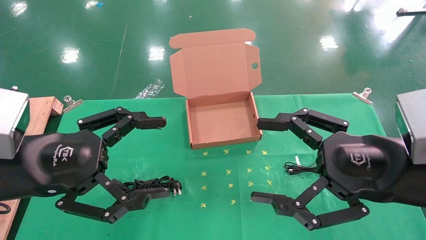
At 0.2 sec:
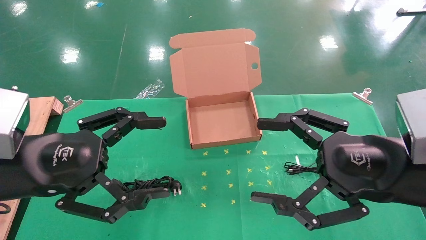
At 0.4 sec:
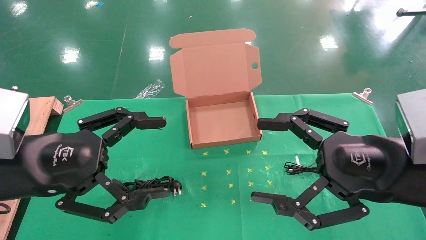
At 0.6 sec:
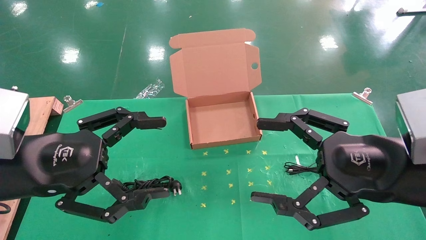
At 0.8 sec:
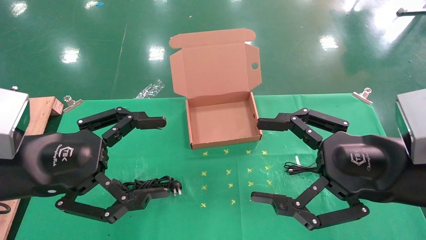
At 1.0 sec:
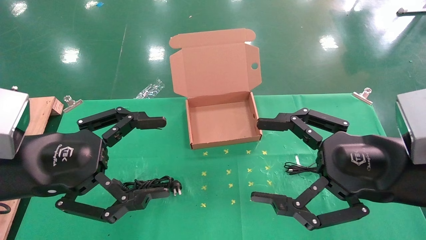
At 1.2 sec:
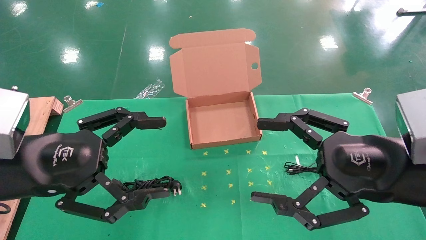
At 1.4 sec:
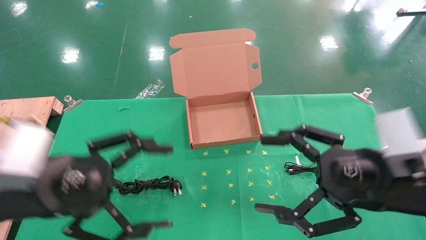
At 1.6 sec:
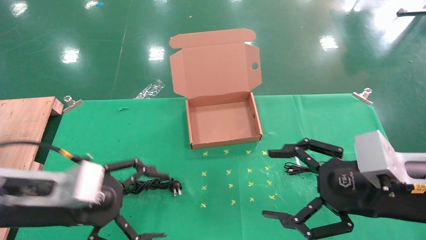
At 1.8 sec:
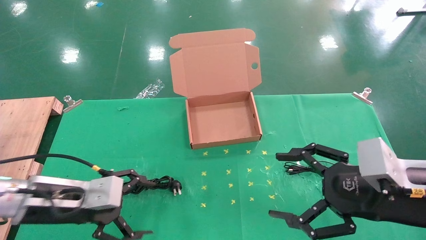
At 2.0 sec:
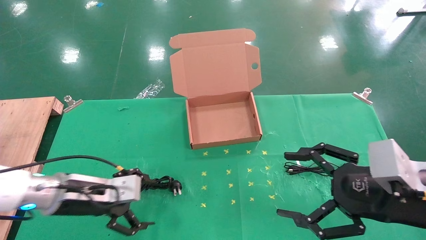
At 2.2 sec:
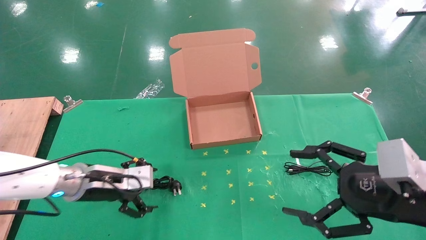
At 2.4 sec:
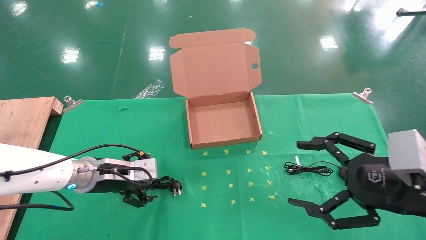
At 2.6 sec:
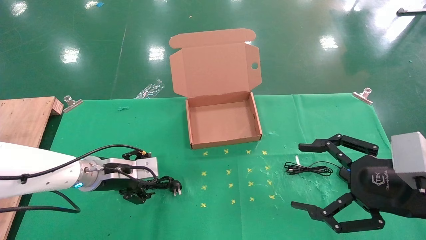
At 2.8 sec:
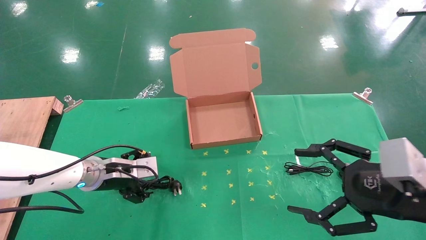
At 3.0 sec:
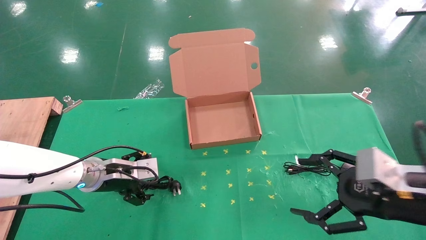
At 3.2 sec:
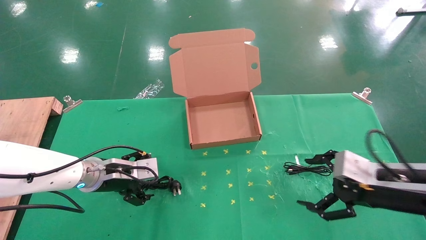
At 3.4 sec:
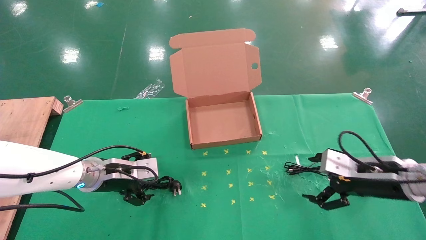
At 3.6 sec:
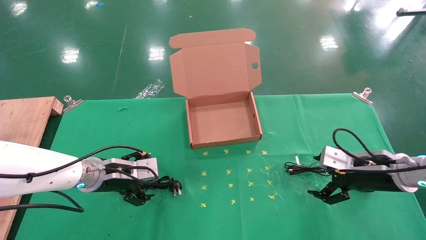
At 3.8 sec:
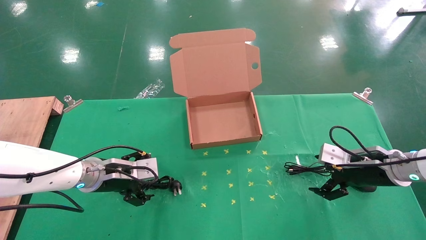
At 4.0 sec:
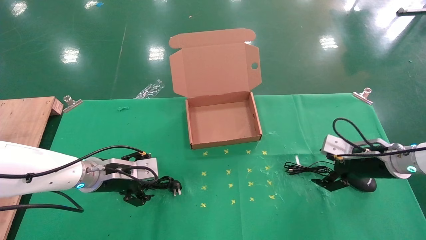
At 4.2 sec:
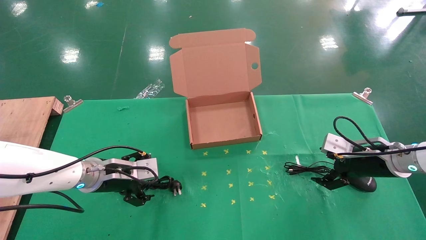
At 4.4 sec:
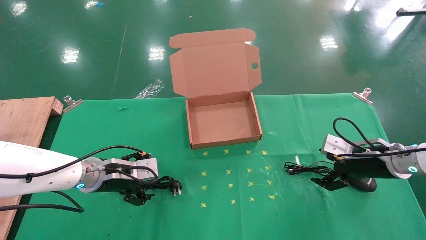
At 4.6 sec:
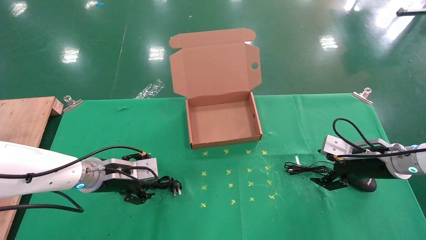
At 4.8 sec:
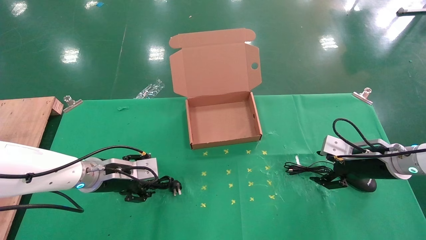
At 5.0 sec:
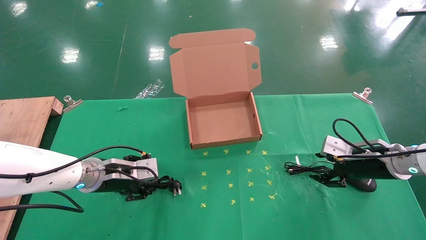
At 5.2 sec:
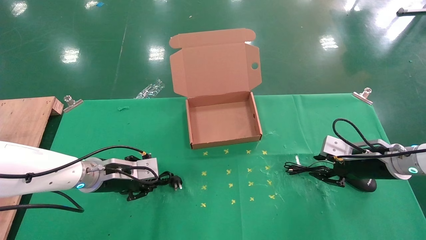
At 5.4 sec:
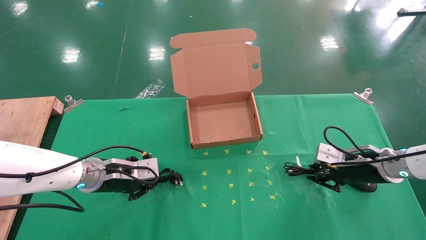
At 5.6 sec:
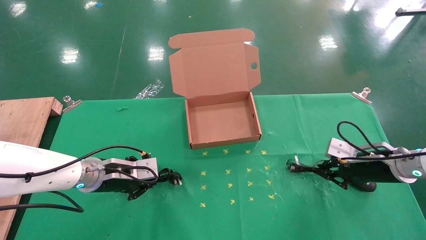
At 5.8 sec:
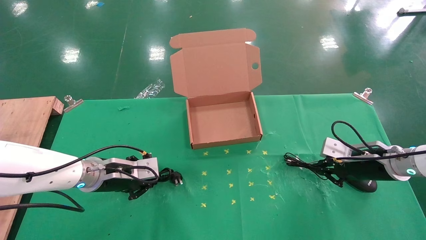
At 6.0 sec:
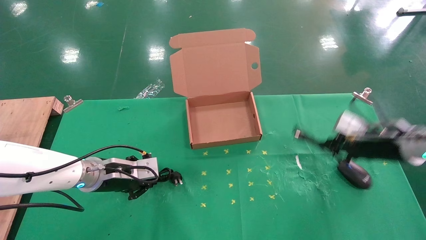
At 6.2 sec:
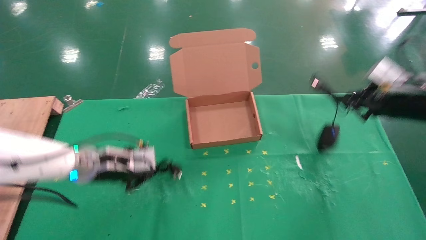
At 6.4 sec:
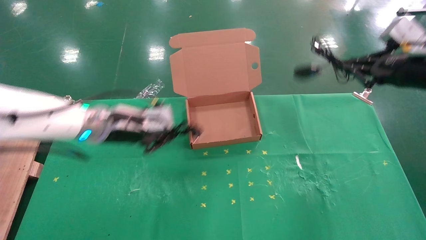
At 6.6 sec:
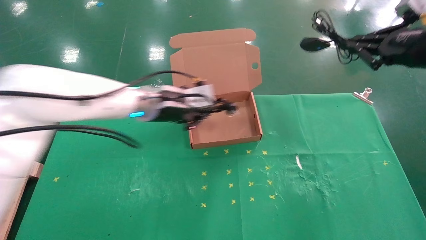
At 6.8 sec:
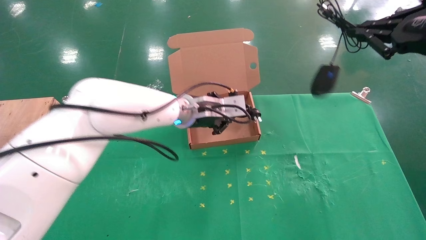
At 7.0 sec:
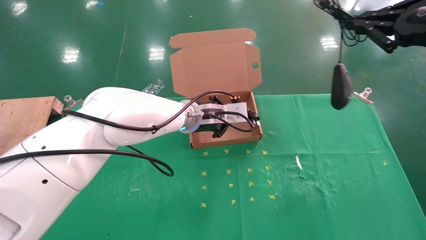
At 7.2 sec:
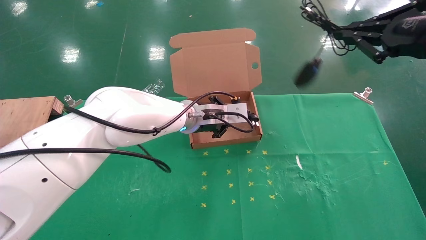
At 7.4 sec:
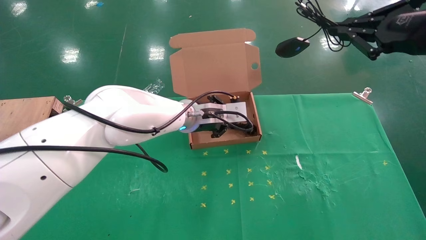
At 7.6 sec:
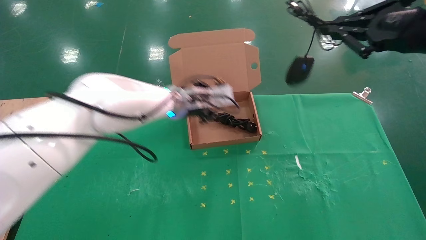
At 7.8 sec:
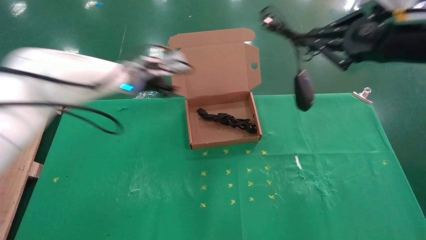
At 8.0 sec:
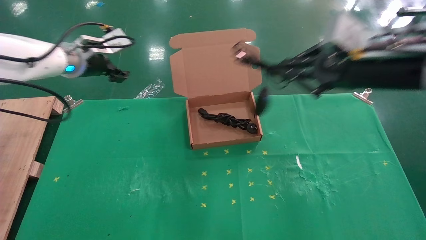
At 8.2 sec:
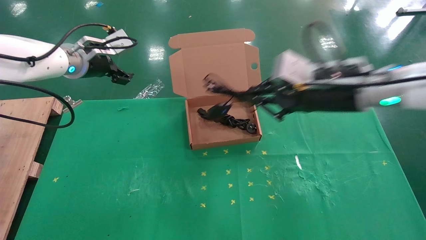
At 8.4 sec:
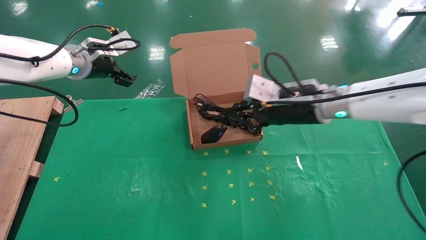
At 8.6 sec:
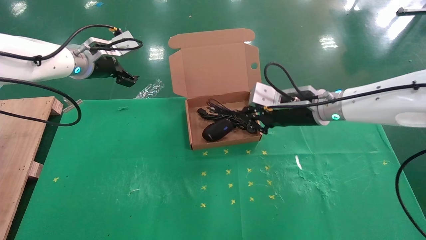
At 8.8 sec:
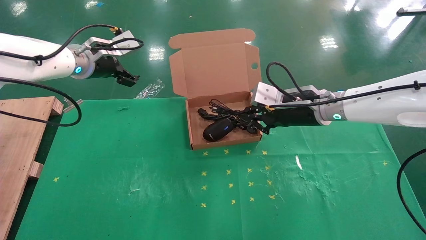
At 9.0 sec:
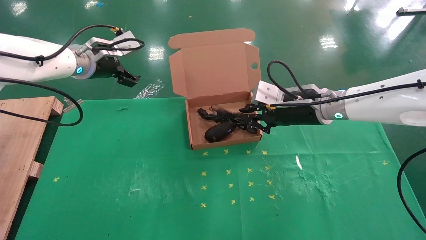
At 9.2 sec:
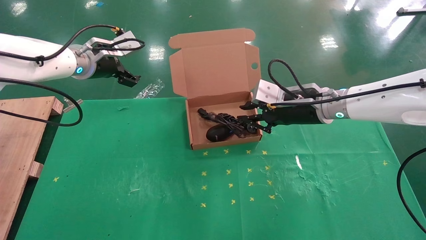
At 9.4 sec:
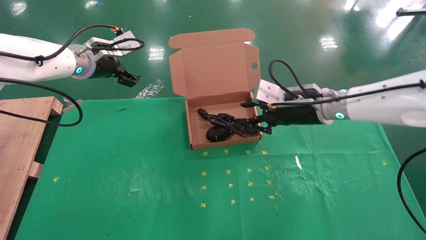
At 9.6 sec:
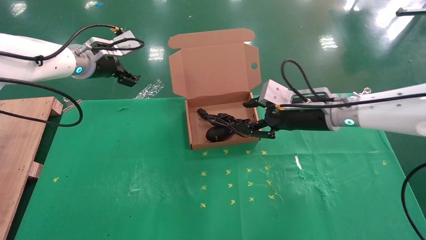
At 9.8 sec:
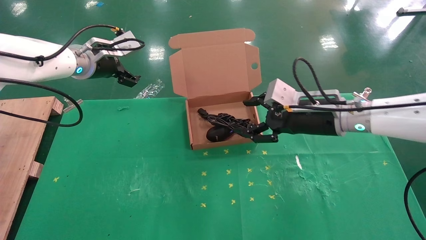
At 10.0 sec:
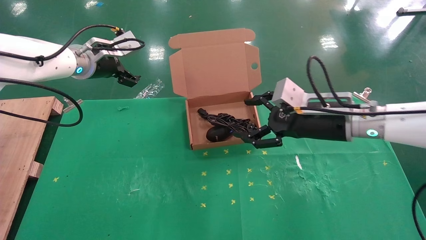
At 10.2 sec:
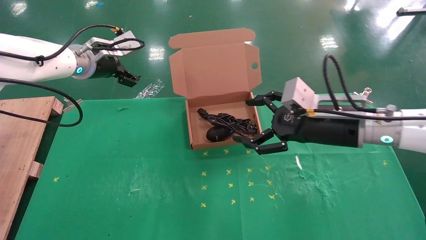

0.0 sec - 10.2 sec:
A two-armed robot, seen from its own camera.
Task of the whole recording: grasp data cable left put into box grasp mouse right put into box.
Step, 1.4 sec - 5.6 sec: Simultaneously pick up the mouse and power cord from the accessory packaging area.
Step, 5.8 sec - 9.4 sec: Place the mouse and power cord into the box.
1.4 sec - 3.0 sec: The left gripper travels forward and downward by roughly 20 cm. Meanwhile the right gripper travels to the right and downward by some 5 cm.
3.0 sec - 4.4 sec: The right gripper shifts about 15 cm forward.
4.4 sec - 5.8 sec: The left gripper closes up; the right gripper closes its fingers.
5.8 sec - 7.2 sec: The right gripper is displaced upward and backward by approximately 25 cm, while the left gripper moves to the right and upward, roughly 25 cm.
7.2 sec - 8.8 sec: The left gripper moves to the left and upward, roughly 25 cm, and opens up, while the right gripper travels to the left, downward and forward by about 25 cm.
8.8 sec - 10.2 sec: The right gripper shifts approximately 10 cm backward, and opens up.

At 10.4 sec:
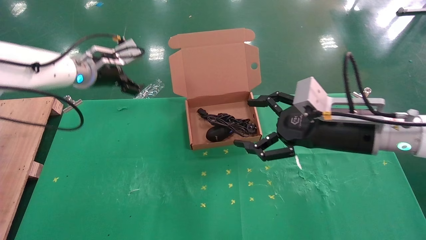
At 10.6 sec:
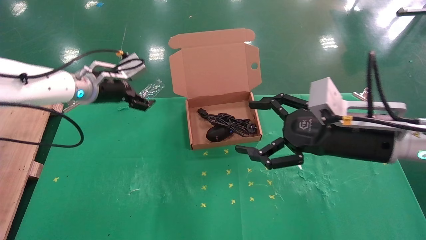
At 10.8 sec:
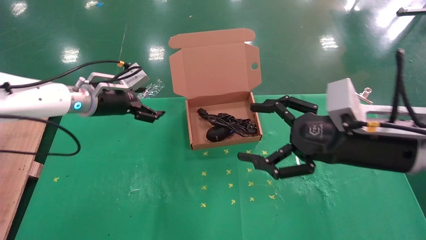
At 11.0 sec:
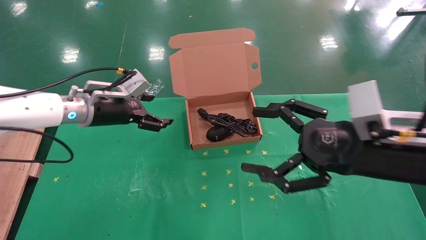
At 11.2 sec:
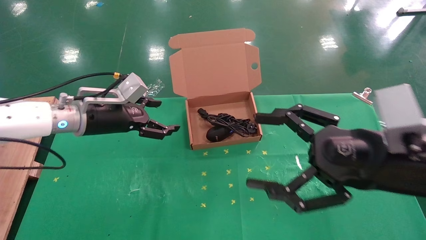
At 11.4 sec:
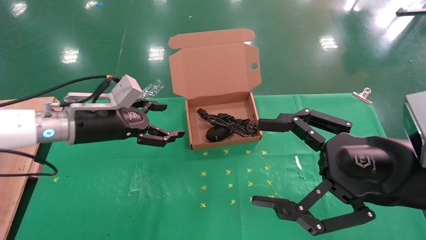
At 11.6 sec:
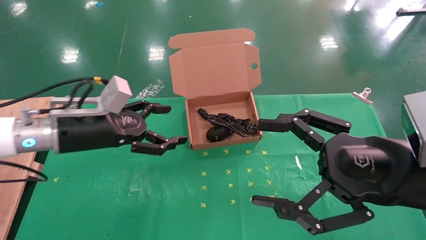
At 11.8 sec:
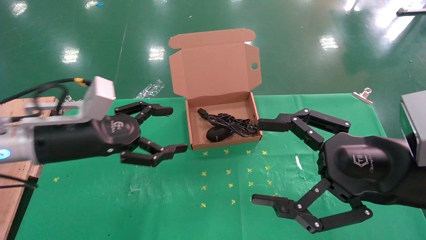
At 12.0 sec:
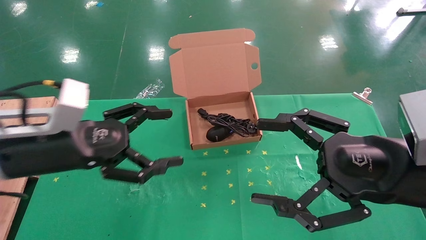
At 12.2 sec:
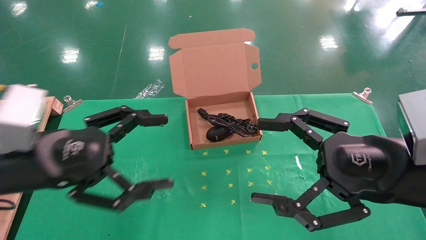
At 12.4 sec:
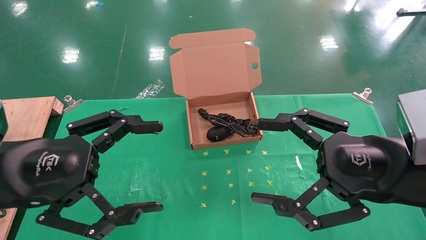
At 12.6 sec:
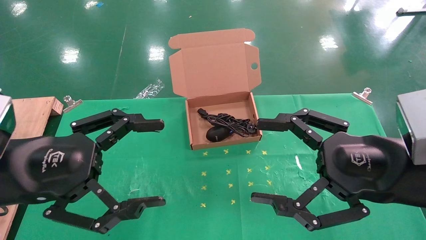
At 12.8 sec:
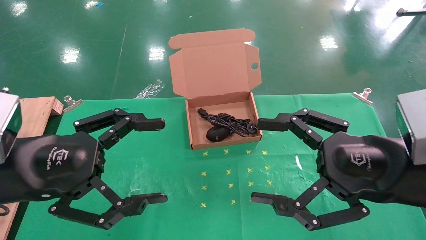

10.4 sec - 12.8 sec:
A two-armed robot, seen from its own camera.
Task of the whole recording: grasp data cable left put into box grasp mouse right put into box.
10.4 sec - 11.6 sec: The left gripper shifts about 15 cm backward and downward; the right gripper travels backward by about 10 cm.
11.6 sec - 12.8 sec: The left gripper is displaced backward by about 15 cm.
